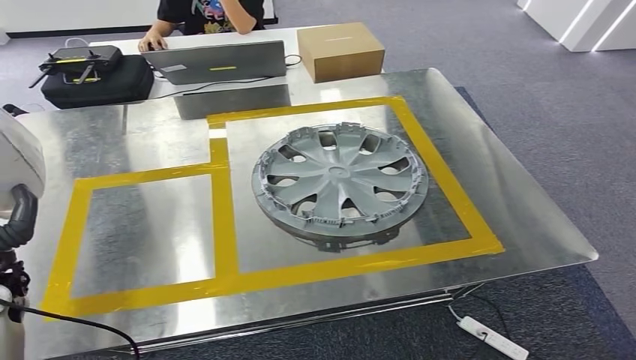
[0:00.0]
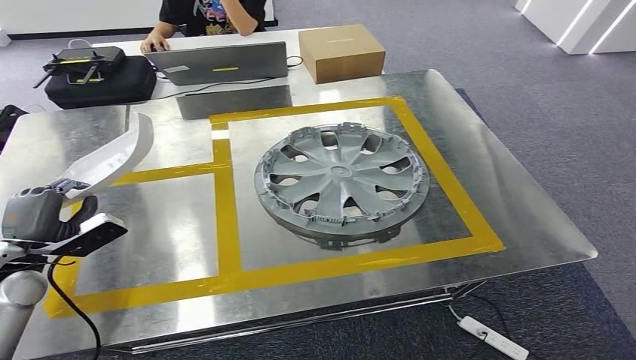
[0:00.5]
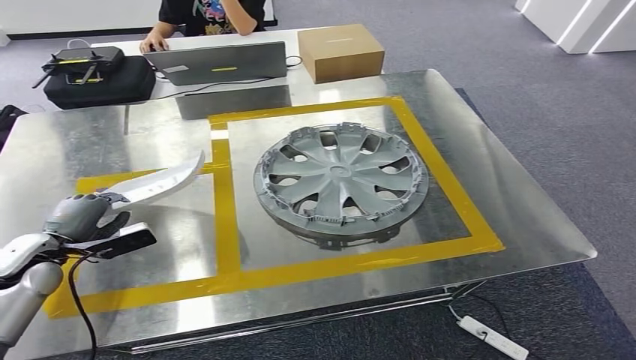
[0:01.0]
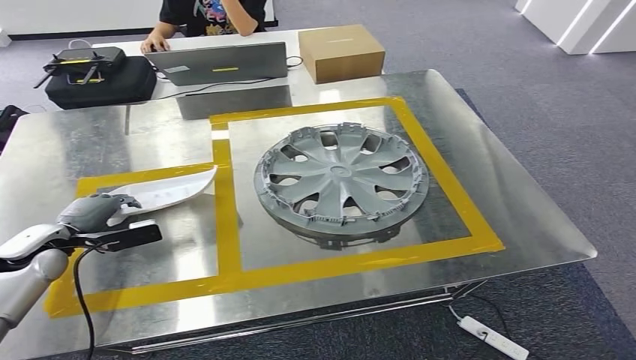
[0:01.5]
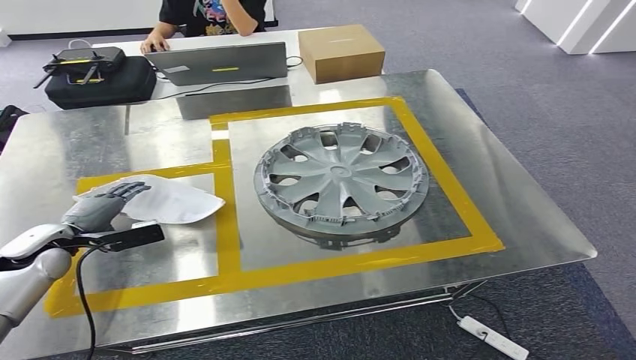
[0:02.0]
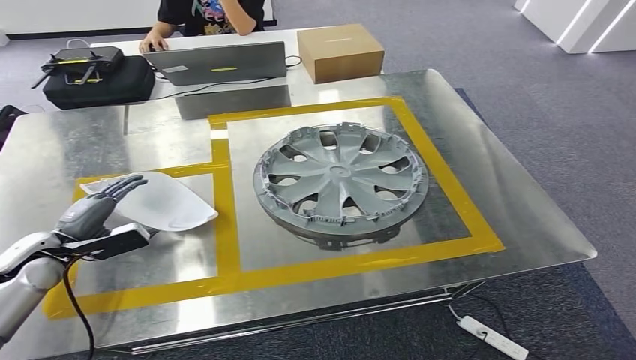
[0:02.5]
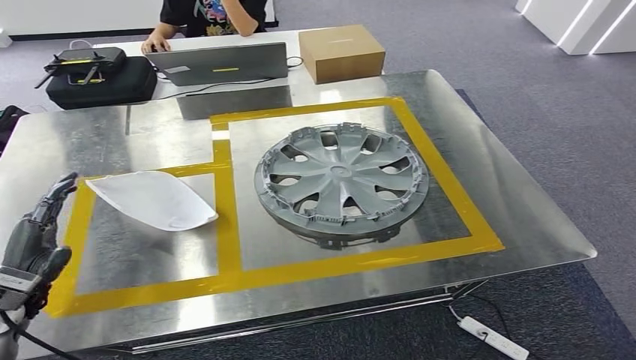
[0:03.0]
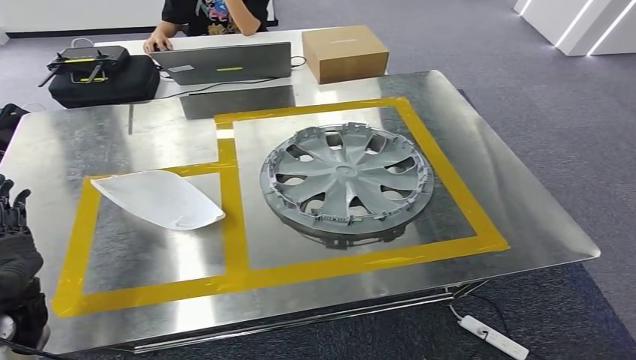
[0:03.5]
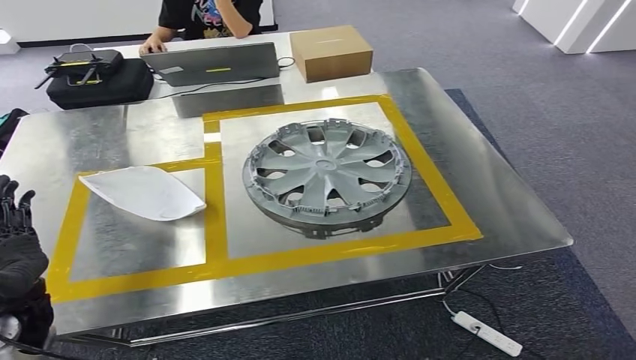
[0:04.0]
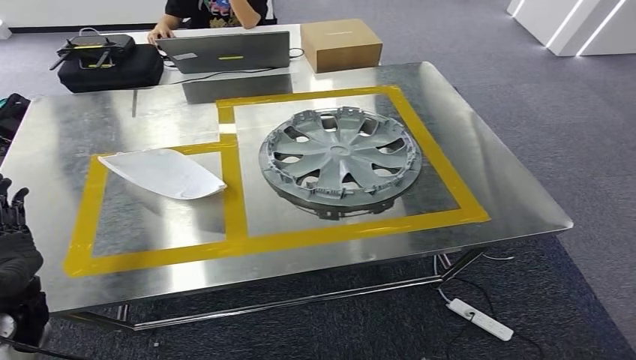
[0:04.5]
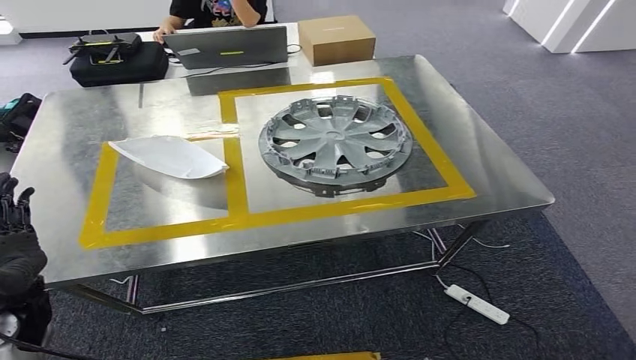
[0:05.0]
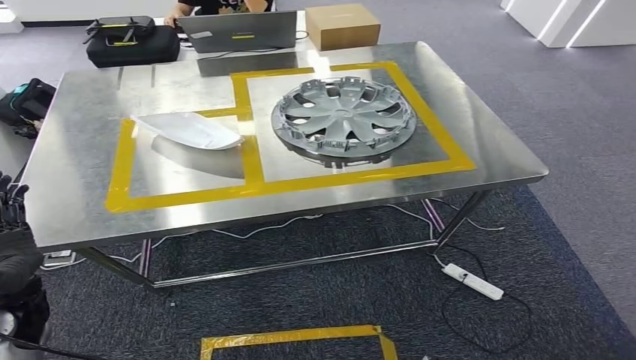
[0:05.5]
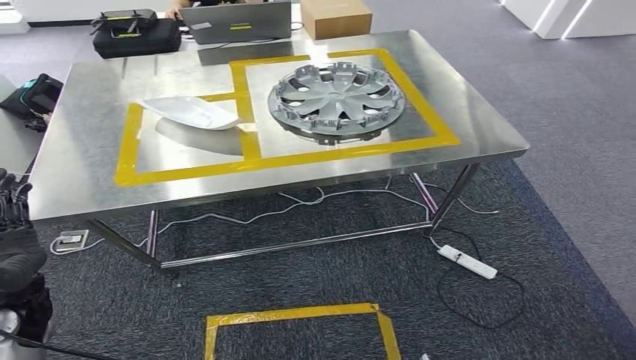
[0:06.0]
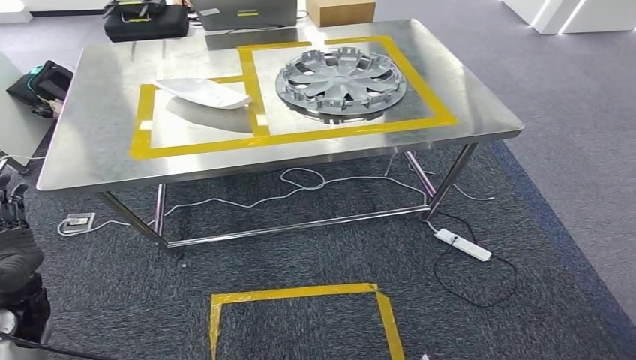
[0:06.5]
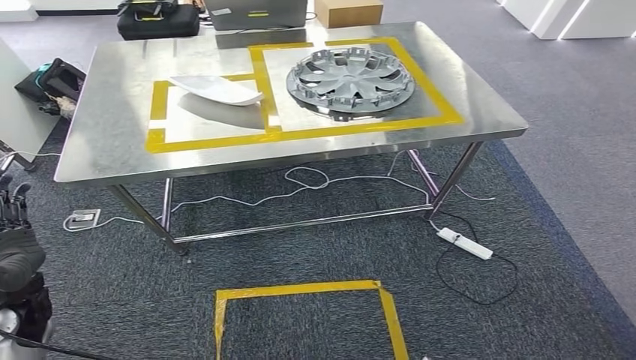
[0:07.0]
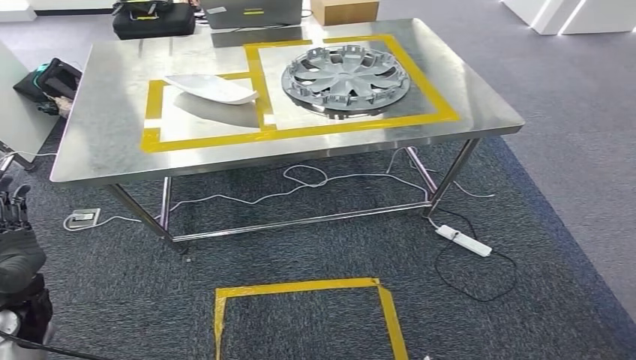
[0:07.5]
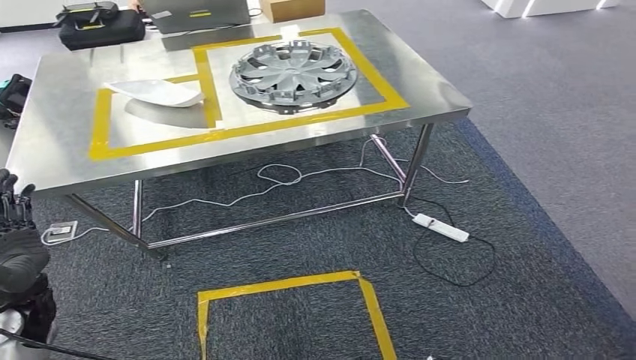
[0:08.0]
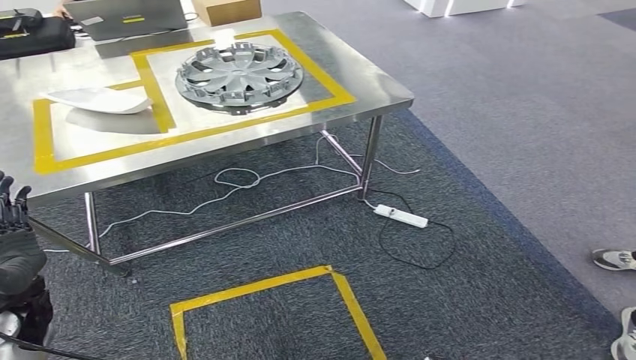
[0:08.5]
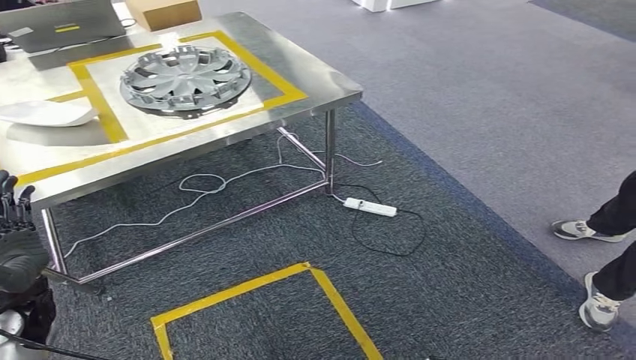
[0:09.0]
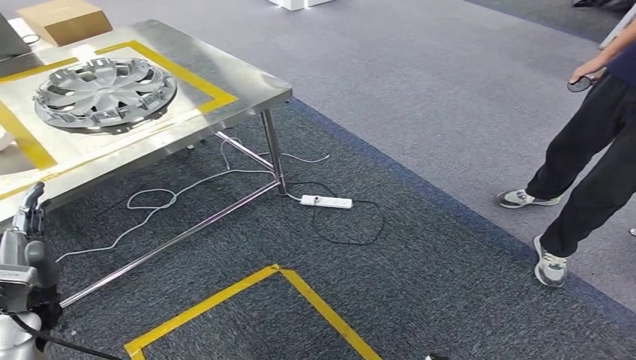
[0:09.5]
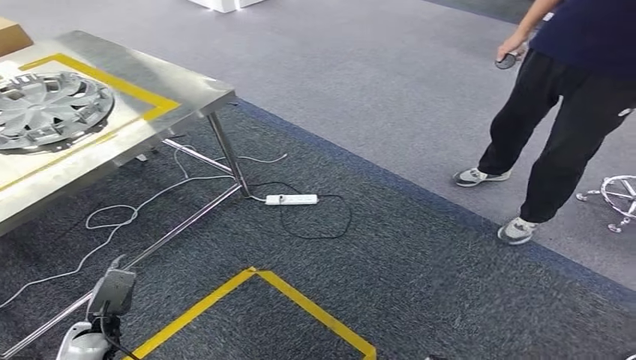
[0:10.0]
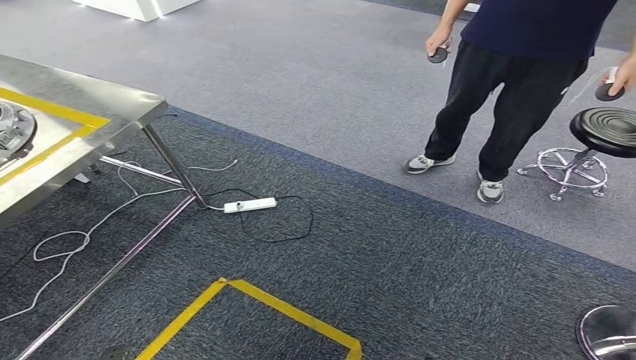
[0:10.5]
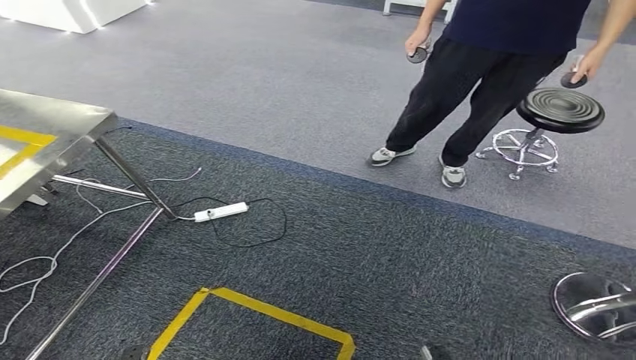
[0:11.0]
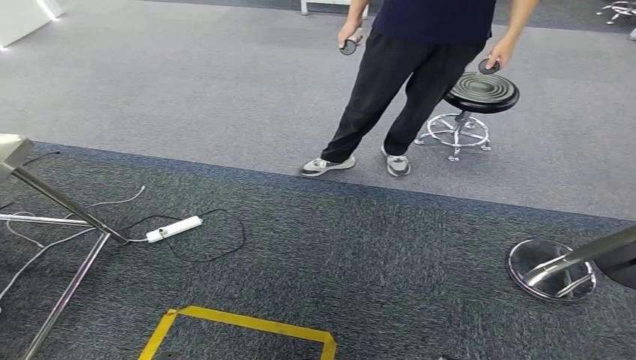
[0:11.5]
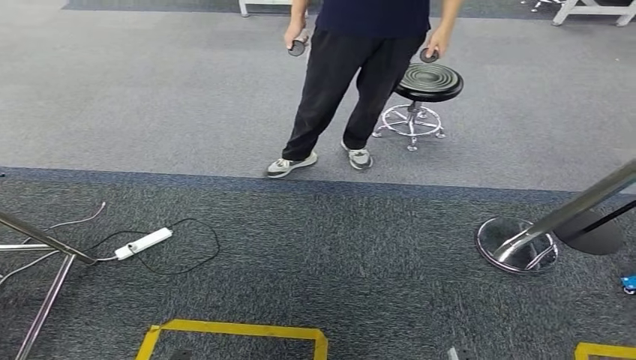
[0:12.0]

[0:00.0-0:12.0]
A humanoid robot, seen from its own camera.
Step, 0:00.0 to 0:03.0: Insert the small parts into the corresponding slots on the workbench.
0:00.0 to 0:02.0: The left hand is displaced downward and forward by some 10 cm.

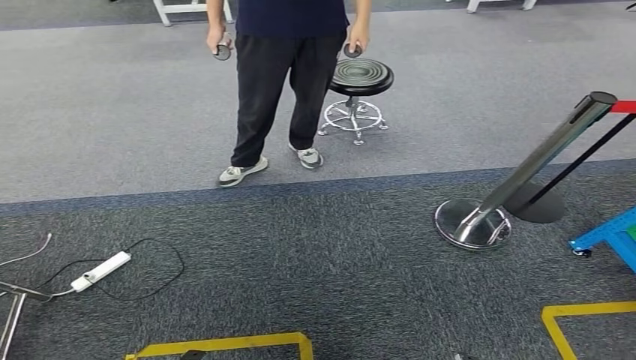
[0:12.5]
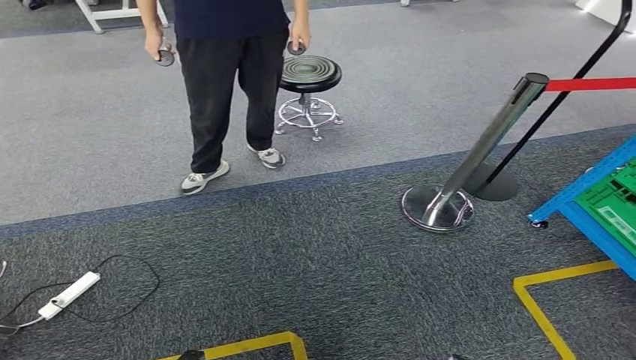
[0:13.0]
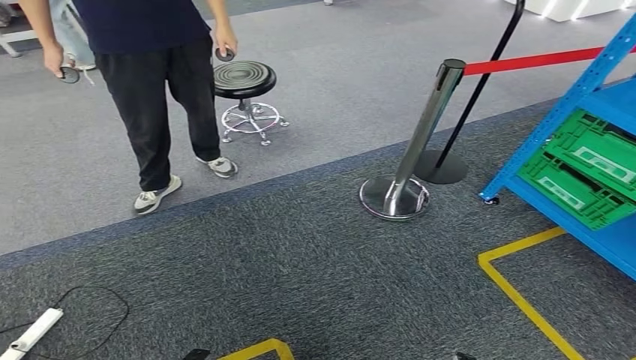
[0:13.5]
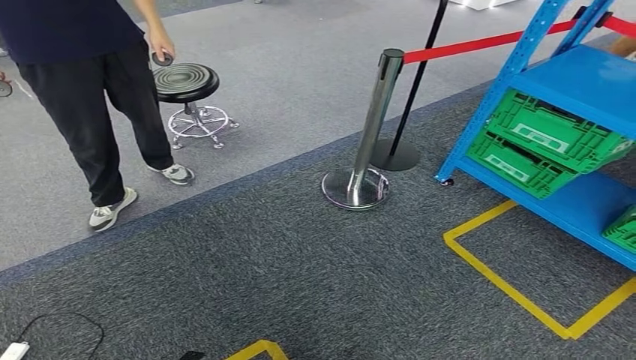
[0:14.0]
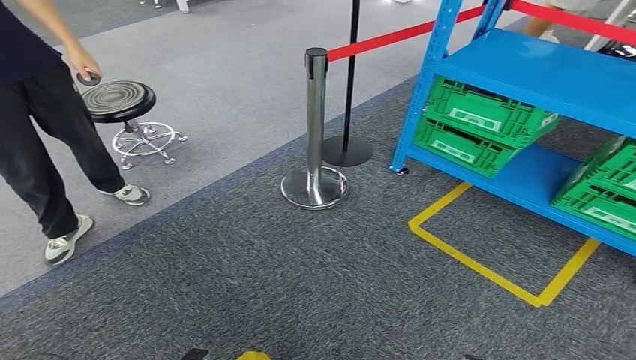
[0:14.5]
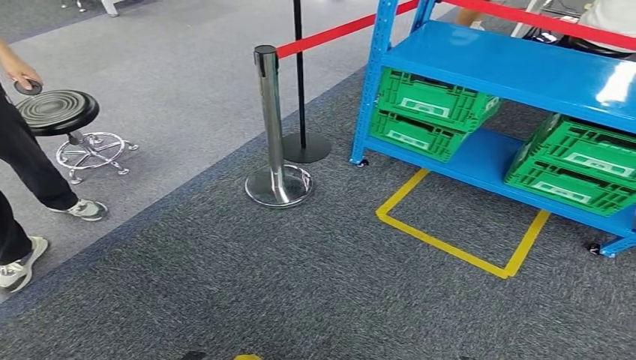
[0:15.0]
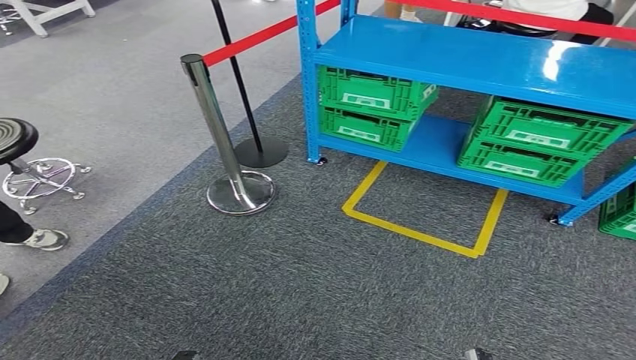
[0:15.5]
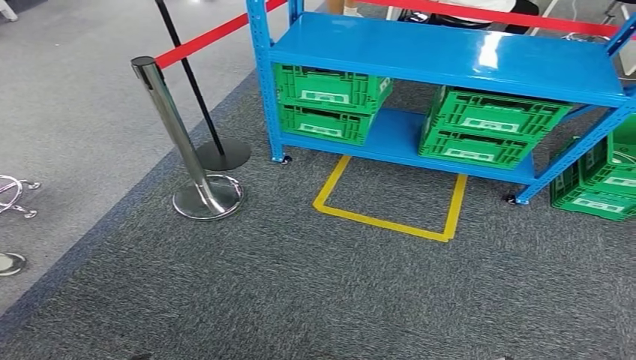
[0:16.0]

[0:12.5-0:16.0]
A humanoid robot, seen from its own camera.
Step, 0:12.5 to 0:16.0: Return to the initial position at the workbench.
